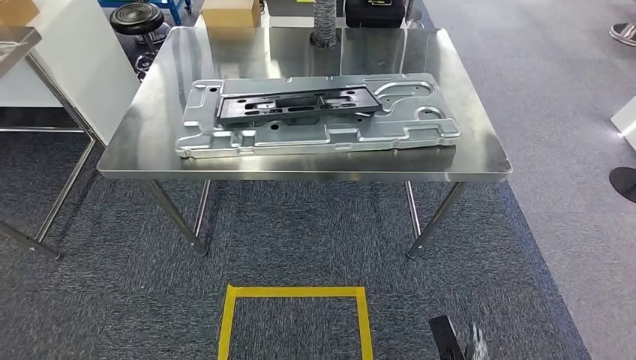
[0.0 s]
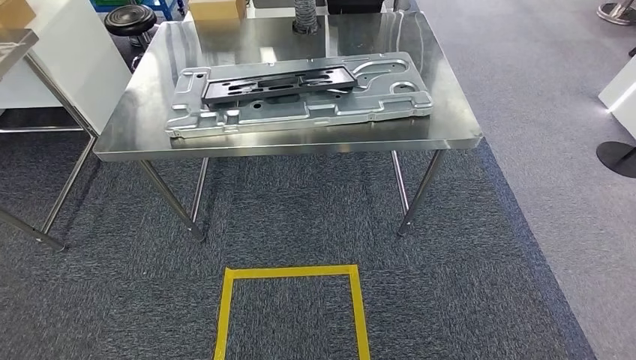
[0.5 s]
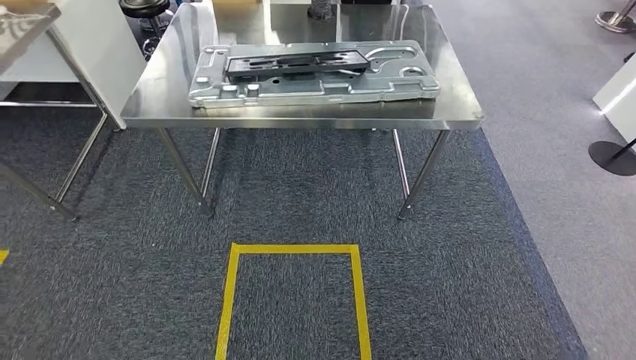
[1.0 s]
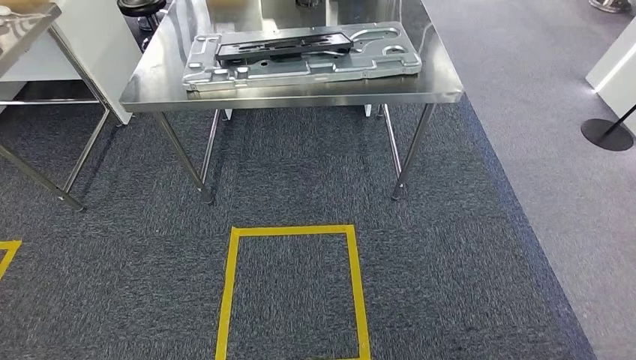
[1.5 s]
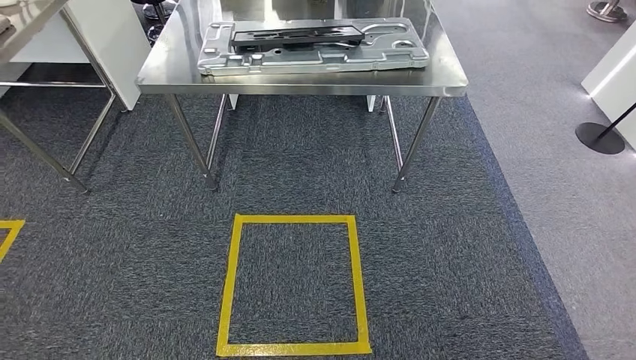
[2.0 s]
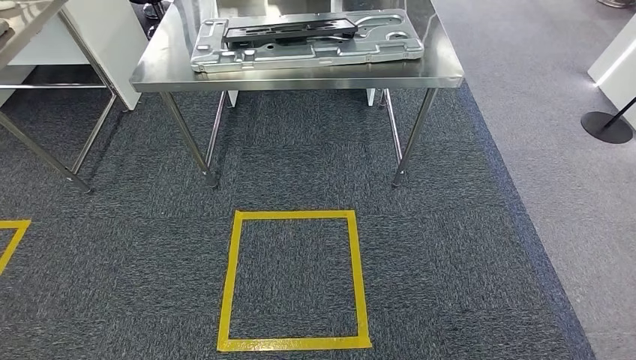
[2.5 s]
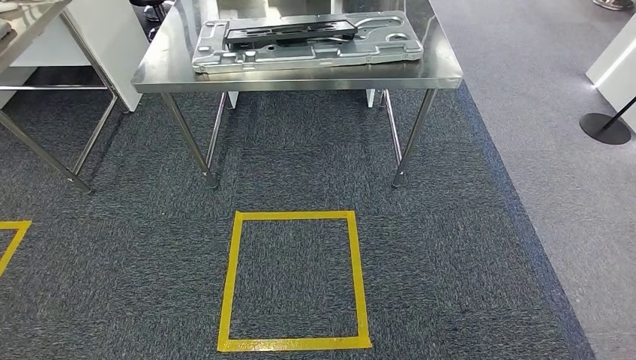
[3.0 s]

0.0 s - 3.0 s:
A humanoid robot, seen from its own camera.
Step, 0.0 s - 3.0 s: Move to the initial position of the workbench.
